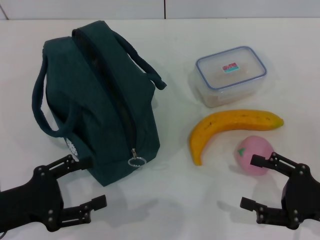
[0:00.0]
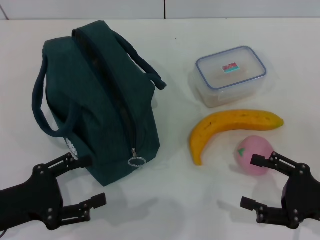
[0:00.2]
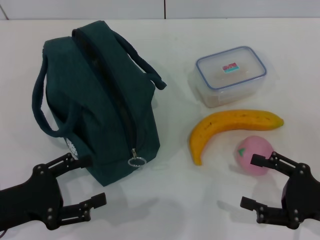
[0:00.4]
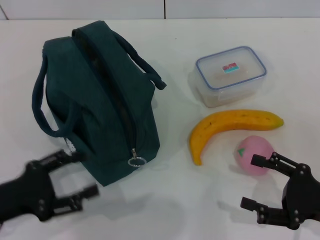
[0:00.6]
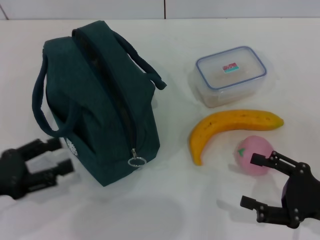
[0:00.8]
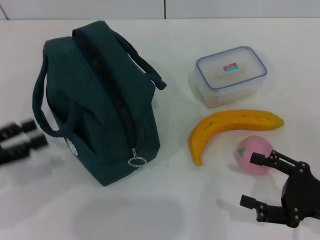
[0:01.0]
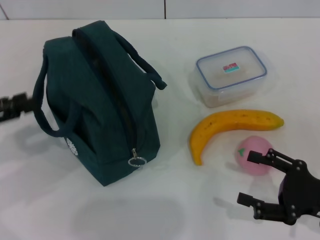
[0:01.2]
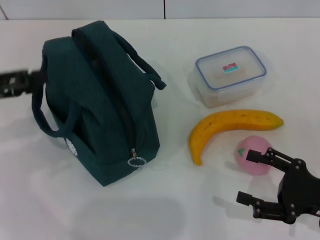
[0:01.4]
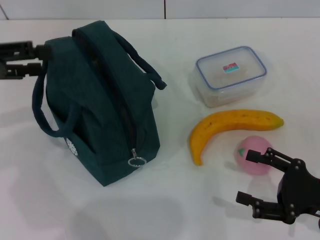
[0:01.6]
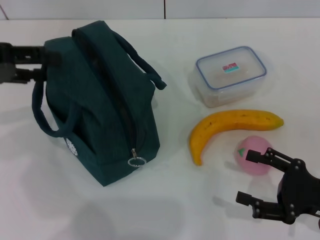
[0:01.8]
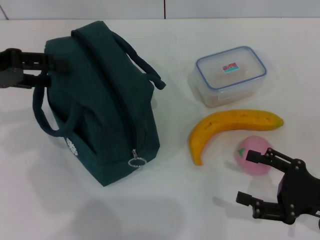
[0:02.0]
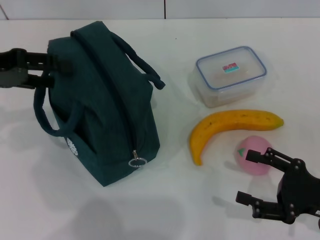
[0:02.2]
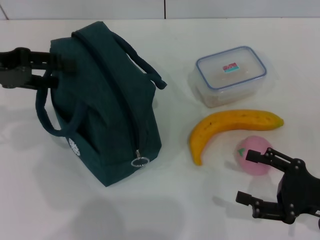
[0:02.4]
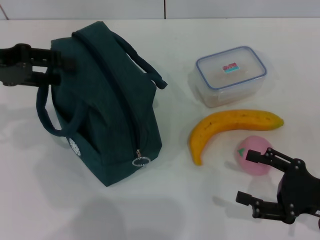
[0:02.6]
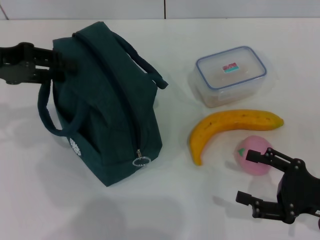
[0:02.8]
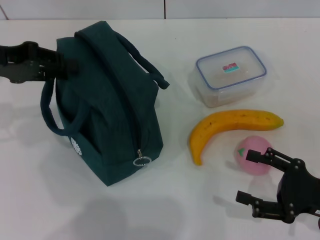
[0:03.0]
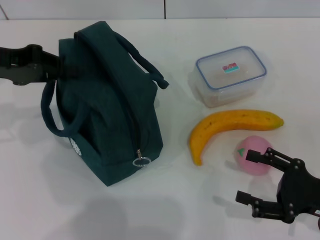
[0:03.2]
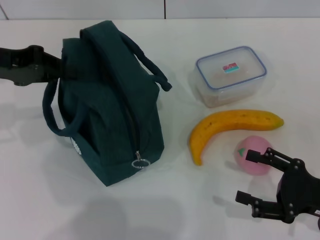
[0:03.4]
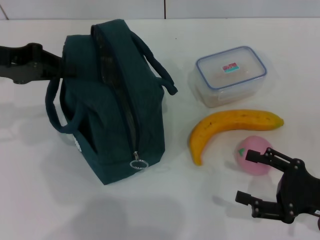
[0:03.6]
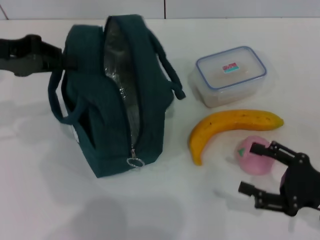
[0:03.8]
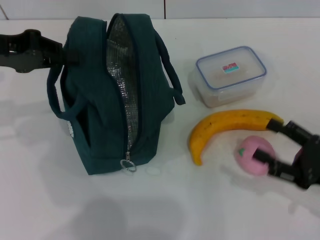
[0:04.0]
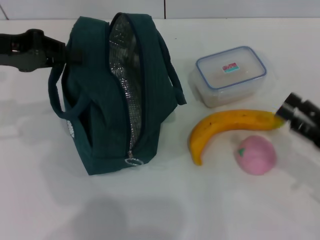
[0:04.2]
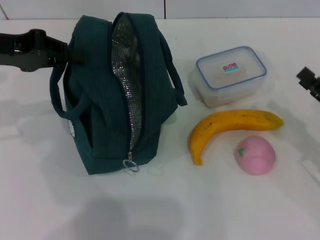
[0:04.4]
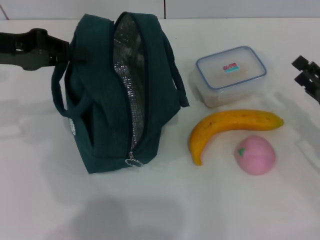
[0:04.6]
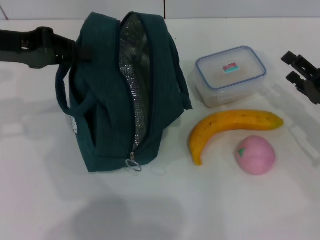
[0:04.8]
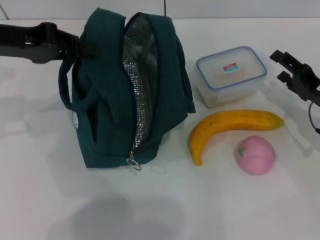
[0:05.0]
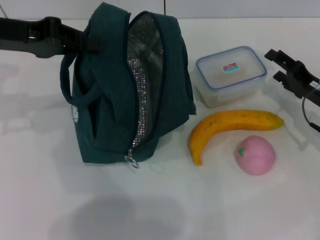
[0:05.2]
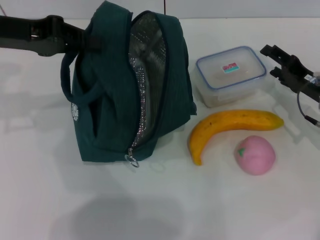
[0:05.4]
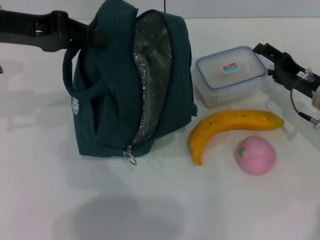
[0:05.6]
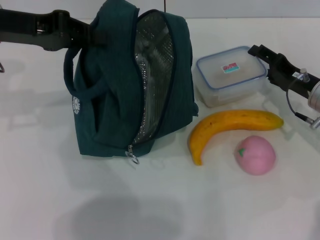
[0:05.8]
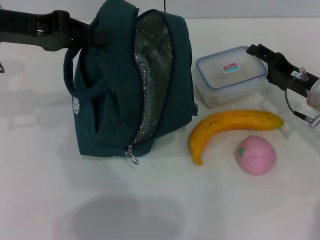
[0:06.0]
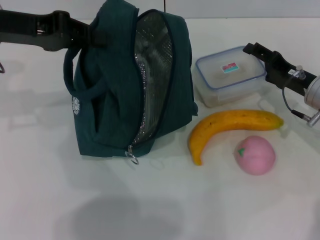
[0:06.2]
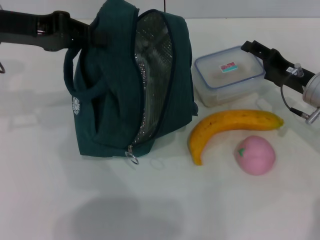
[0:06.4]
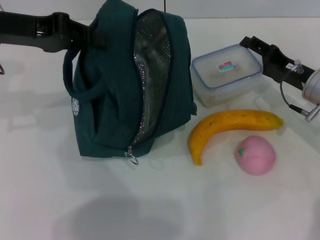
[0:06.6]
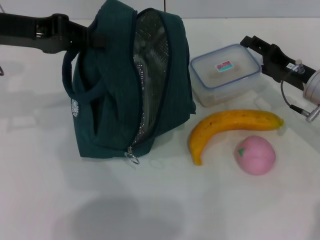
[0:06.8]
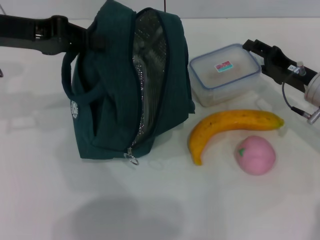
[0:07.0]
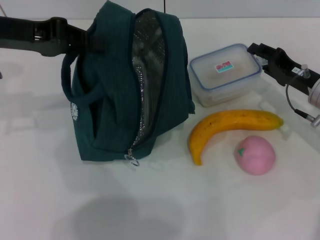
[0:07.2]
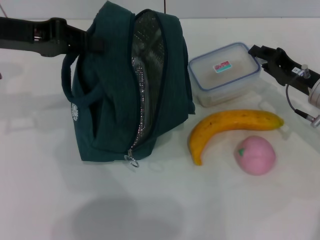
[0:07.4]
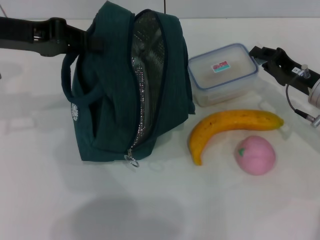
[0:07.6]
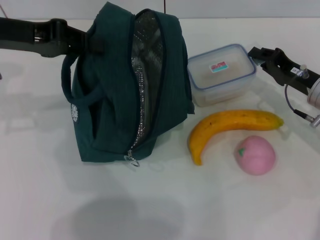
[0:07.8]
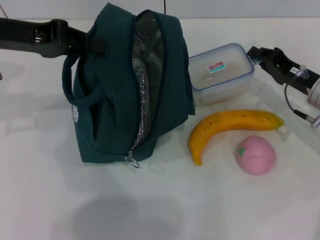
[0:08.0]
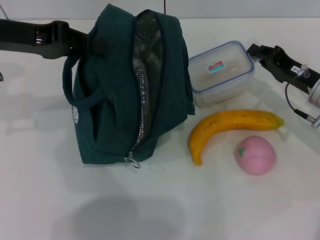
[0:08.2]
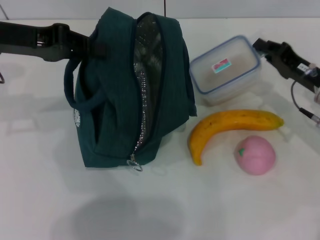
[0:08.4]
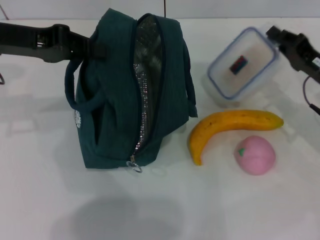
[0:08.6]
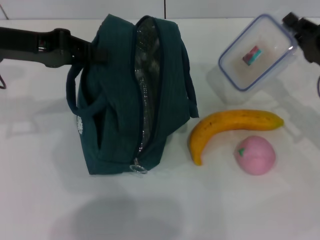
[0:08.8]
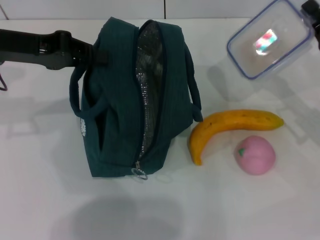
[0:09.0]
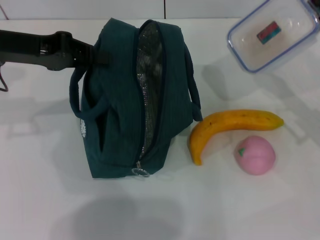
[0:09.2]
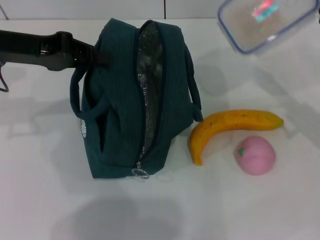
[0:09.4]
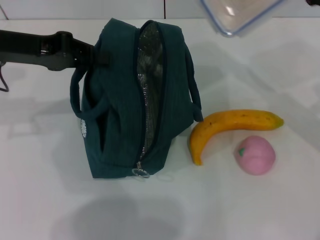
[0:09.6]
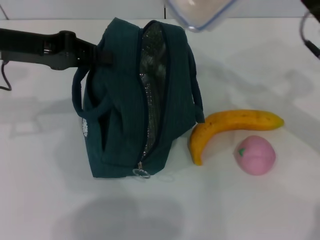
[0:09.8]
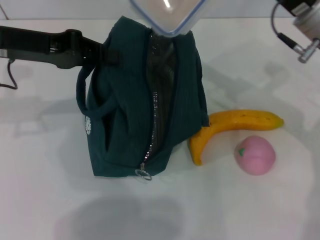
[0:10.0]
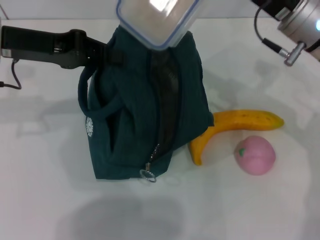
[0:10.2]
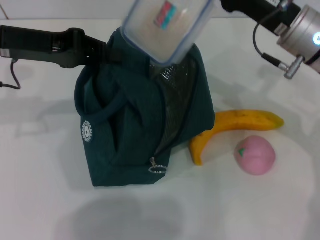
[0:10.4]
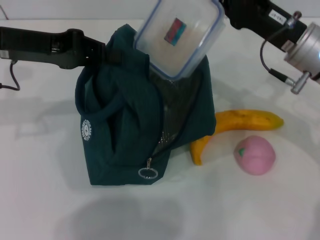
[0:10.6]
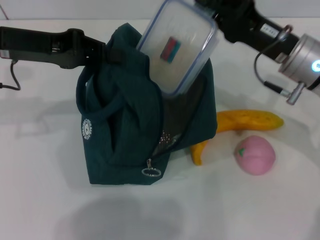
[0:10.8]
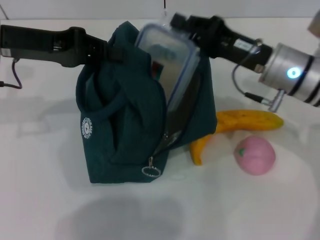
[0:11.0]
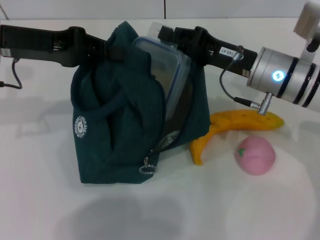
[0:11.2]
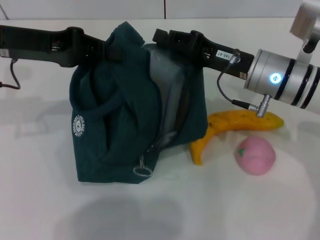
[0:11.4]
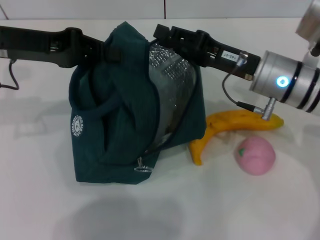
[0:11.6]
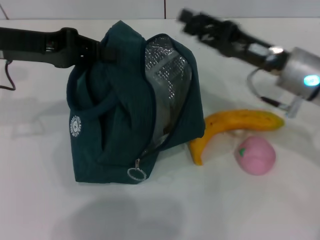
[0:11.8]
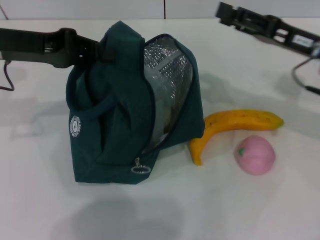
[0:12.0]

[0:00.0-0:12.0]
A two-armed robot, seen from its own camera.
Step, 0:00.0 to 0:04.0: Hold the lunch bag with your left hand.
Step, 0:04.2 to 0:07.8: Pick up the lunch box with your right hand.
Step, 0:08.0 to 0:11.6: Place the lunch box into the lunch bag with your right hand.
0:00.0 to 0:01.6: The left gripper shifts roughly 20 cm upward and forward.
0:01.6 to 0:03.0: The left gripper closes up.
0:03.0 to 0:04.4: The right gripper shifts by roughly 5 cm. The left gripper closes its fingers.
0:04.4 to 0:06.0: The right gripper is displaced forward and to the left by some 15 cm.
0:06.0 to 0:07.6: The right gripper closes up.
0:07.6 to 0:09.0: The right gripper changes place by approximately 5 cm.
0:09.0 to 0:10.4: The right gripper heads to the left and upward, covering roughly 15 cm.
0:10.4 to 0:12.0: The right gripper shifts roughly 5 cm to the right, and opens.

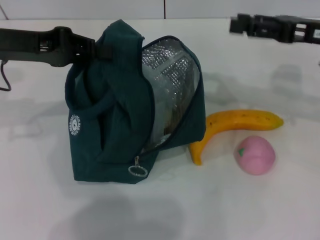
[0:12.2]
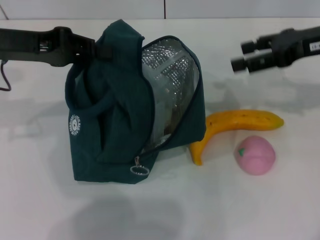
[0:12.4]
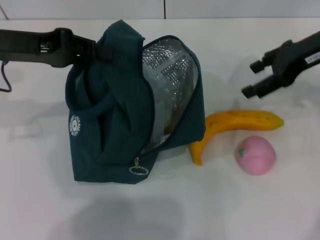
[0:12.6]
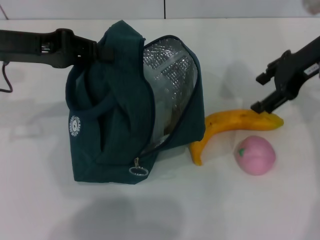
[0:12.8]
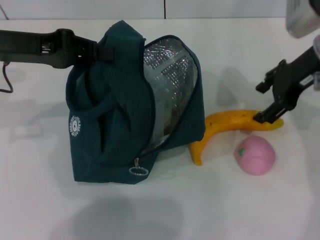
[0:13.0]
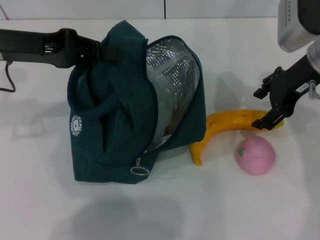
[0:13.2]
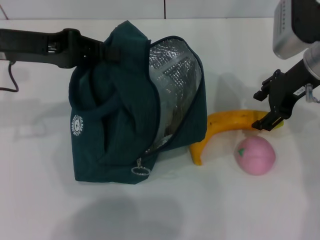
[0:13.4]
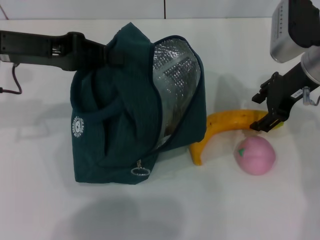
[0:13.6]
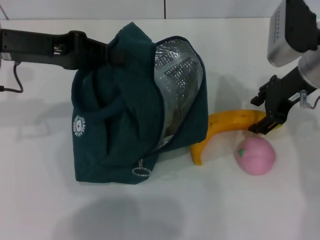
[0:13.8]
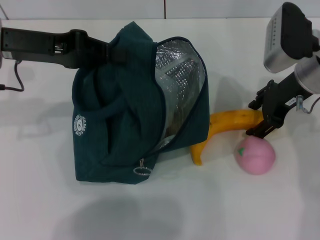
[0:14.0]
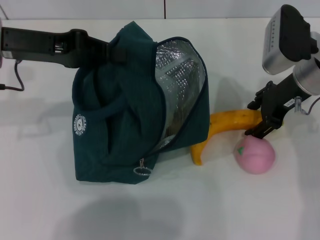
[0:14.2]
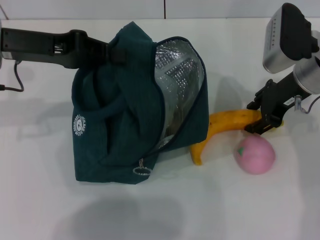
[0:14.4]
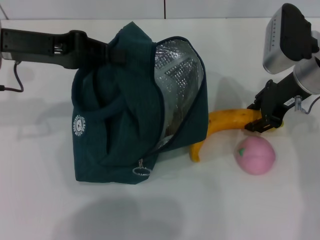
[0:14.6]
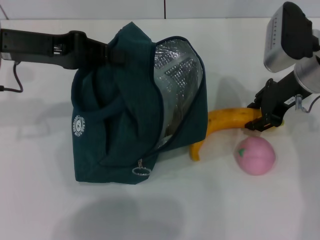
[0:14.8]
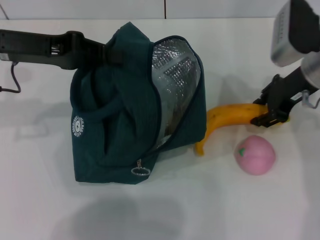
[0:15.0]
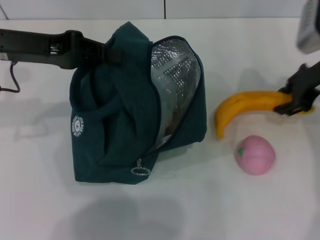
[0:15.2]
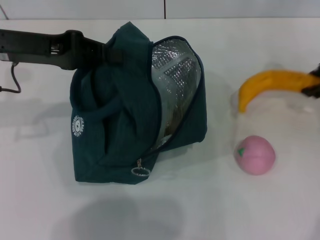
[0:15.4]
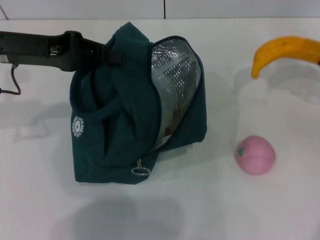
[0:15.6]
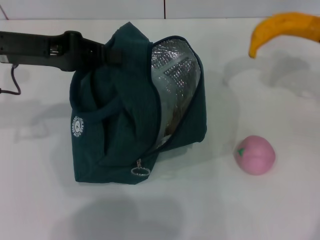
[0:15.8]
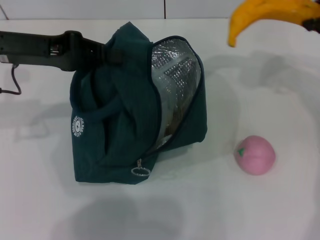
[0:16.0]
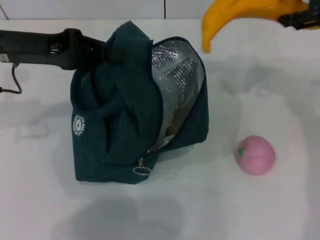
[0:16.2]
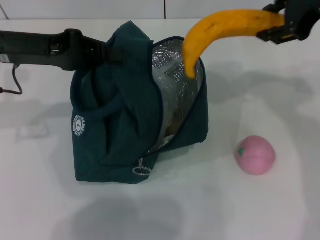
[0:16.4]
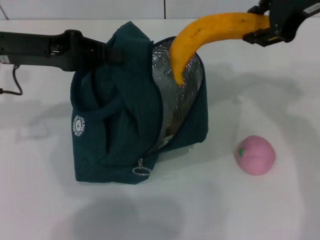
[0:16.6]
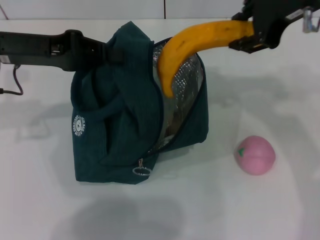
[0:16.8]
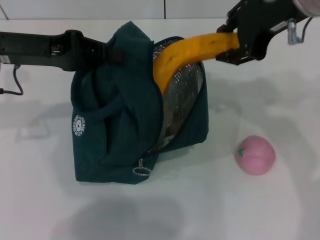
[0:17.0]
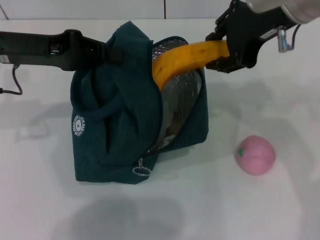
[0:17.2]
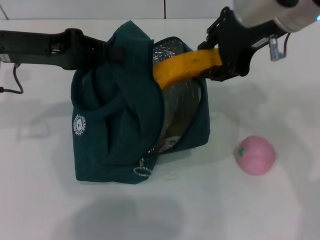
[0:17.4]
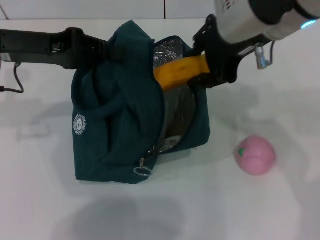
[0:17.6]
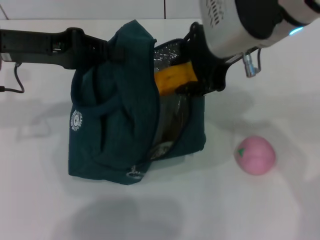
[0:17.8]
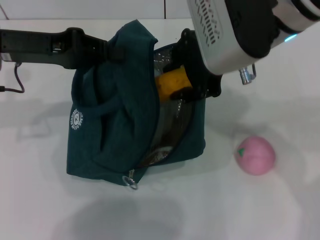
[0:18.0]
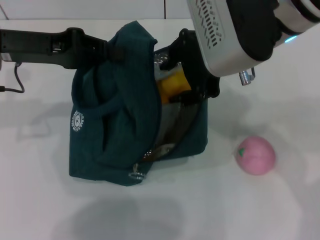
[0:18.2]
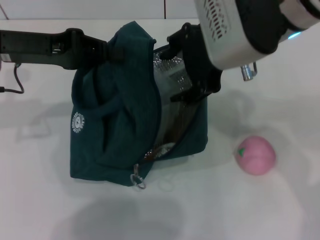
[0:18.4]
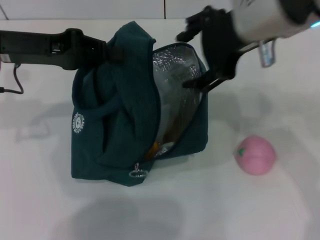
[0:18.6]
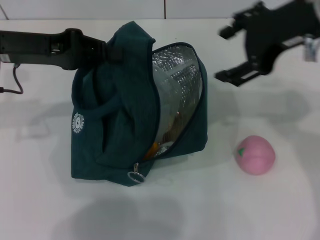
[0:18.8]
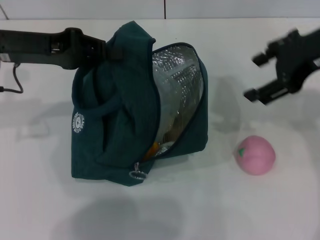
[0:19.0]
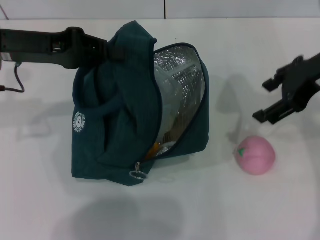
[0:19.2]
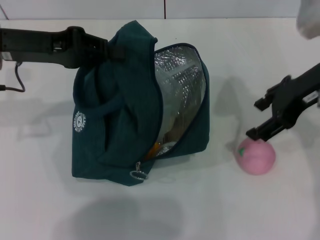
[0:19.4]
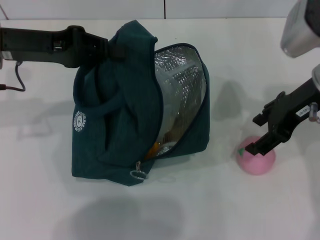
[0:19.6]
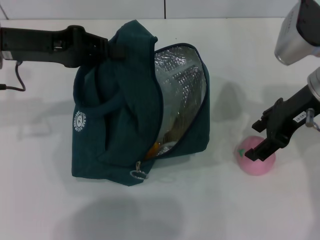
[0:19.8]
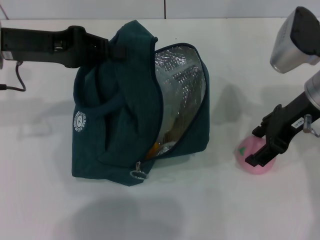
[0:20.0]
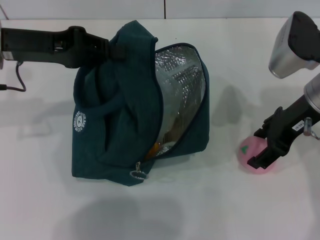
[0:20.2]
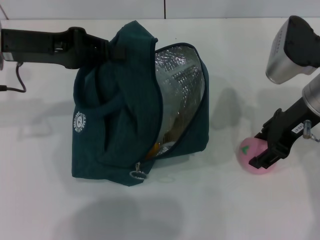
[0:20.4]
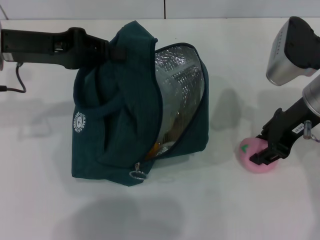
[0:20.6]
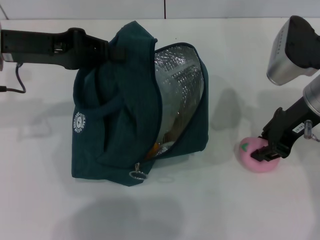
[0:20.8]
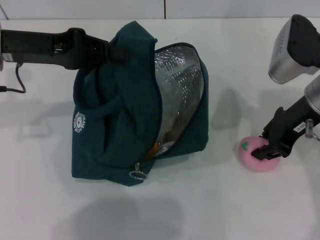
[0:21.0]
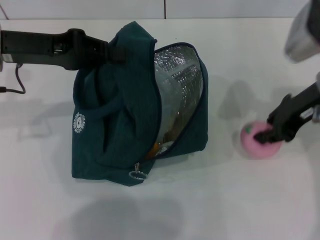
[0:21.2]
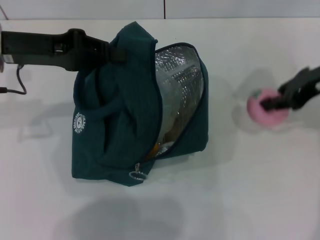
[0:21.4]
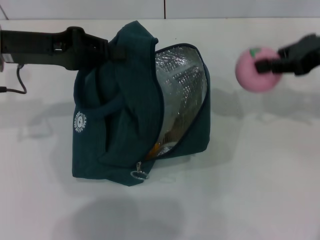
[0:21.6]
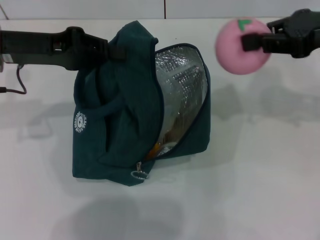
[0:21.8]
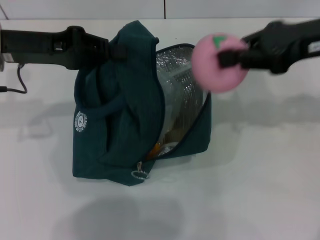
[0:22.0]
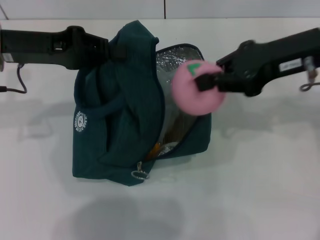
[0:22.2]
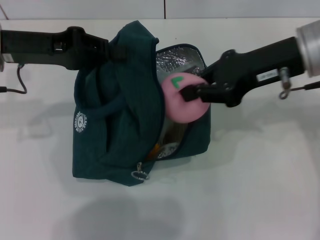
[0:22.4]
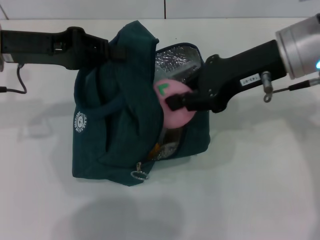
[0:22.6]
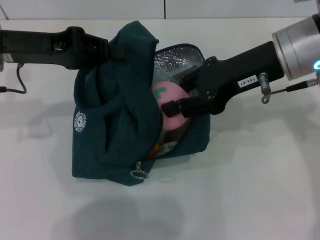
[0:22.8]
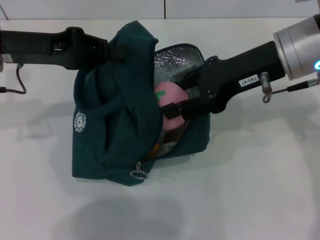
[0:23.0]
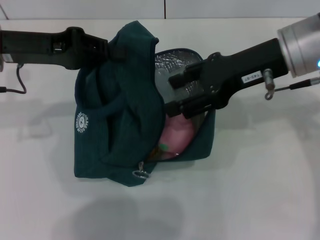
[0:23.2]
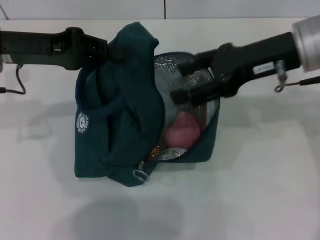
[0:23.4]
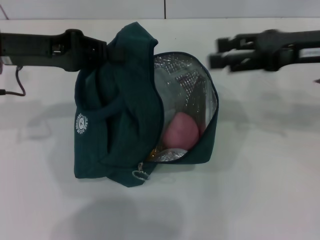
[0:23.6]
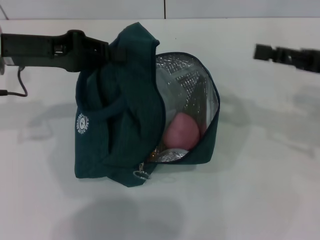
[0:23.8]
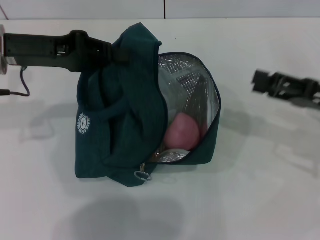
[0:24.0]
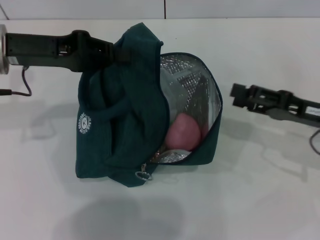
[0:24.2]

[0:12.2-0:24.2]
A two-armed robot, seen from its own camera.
Step, 0:12.2 to 0:14.6: Take the banana with your right hand.
Step, 0:14.8 to 0:18.6: Put the banana into the lunch bag with your right hand.
Step, 0:18.8 to 0:20.8: Grab the peach with your right hand.
0:12.2 to 0:13.8: The right gripper moves to the left, approximately 5 cm.
0:13.8 to 0:15.2: The grippers move only a little.
0:15.2 to 0:16.6: The right gripper moves upward and to the left, roughly 15 cm.
0:16.6 to 0:18.2: The right gripper heads to the left and backward, covering some 10 cm.
0:18.2 to 0:19.8: The right gripper travels to the right and downward by roughly 15 cm, and opens its fingers.
0:19.8 to 0:21.2: The right gripper closes.
0:21.2 to 0:22.6: The right gripper heads to the left, covering some 5 cm.
0:22.6 to 0:24.2: The right gripper goes approximately 15 cm downward and to the right, and opens its fingers.
